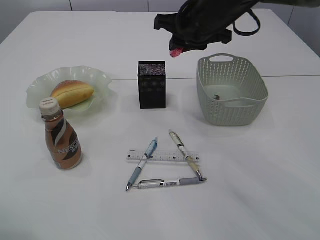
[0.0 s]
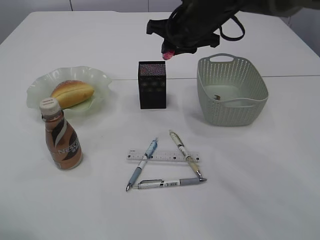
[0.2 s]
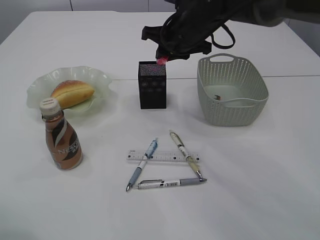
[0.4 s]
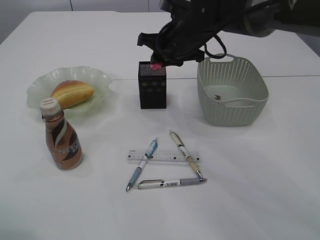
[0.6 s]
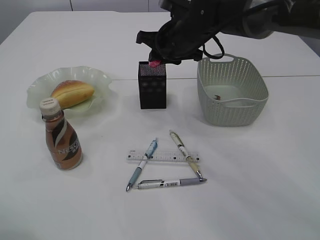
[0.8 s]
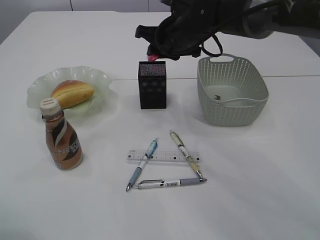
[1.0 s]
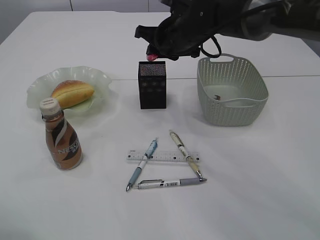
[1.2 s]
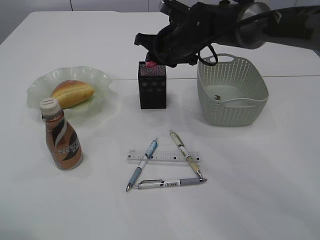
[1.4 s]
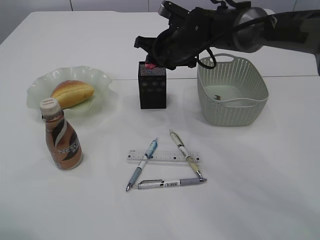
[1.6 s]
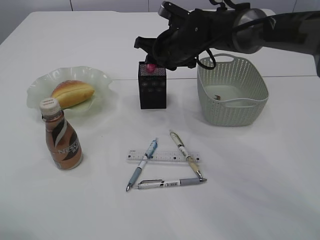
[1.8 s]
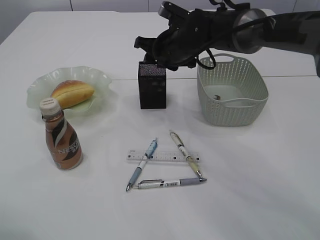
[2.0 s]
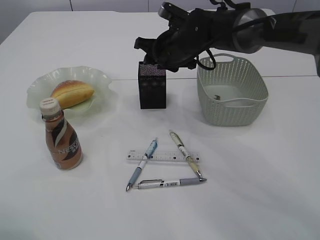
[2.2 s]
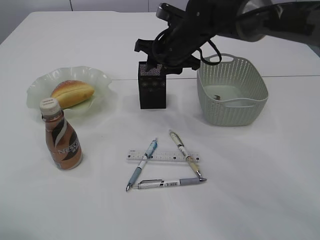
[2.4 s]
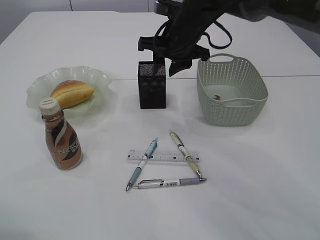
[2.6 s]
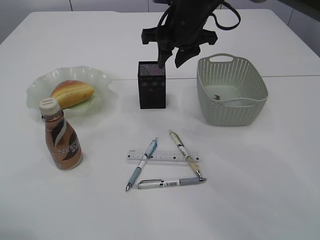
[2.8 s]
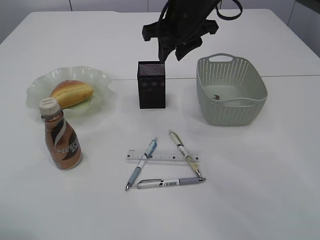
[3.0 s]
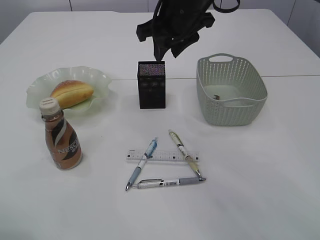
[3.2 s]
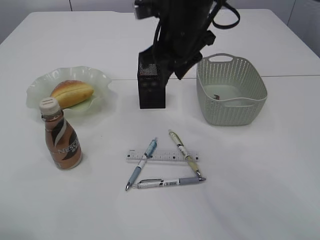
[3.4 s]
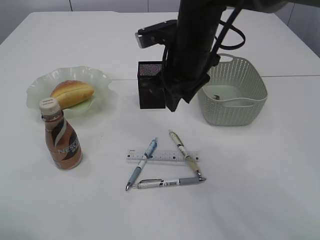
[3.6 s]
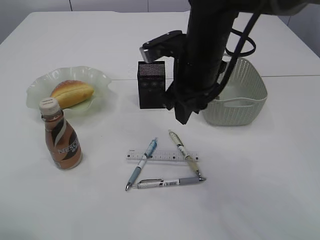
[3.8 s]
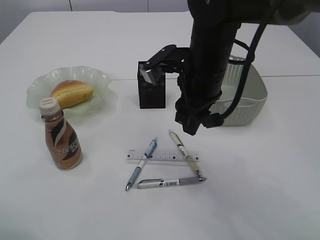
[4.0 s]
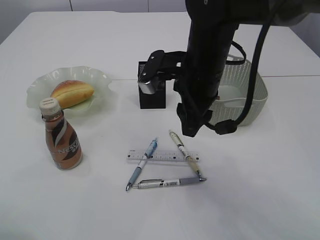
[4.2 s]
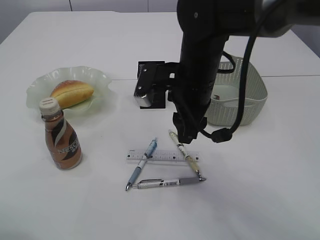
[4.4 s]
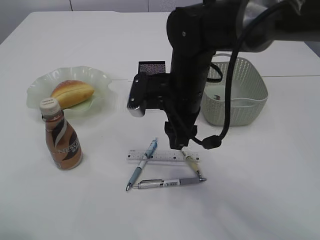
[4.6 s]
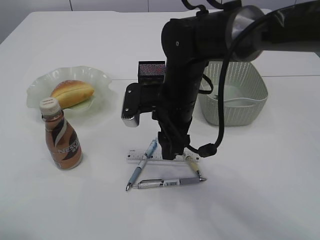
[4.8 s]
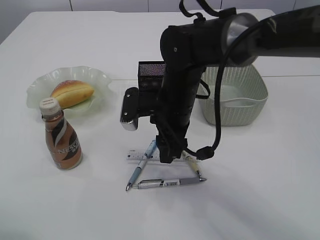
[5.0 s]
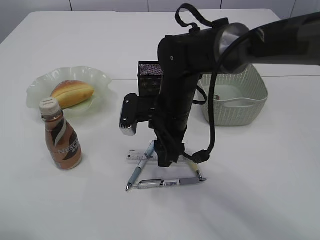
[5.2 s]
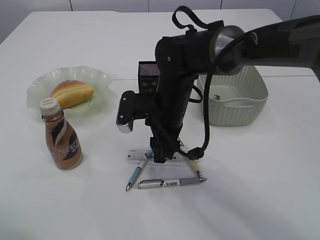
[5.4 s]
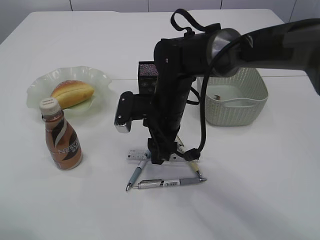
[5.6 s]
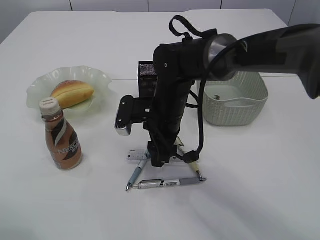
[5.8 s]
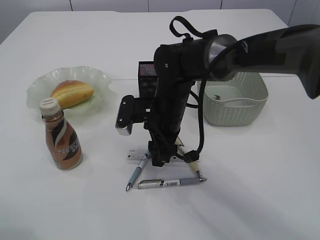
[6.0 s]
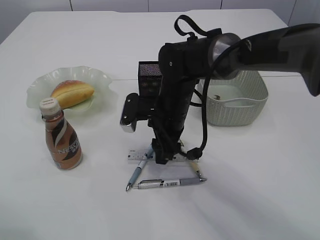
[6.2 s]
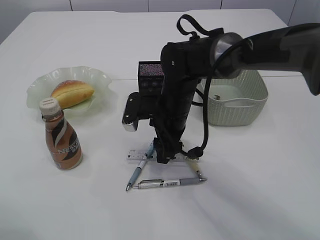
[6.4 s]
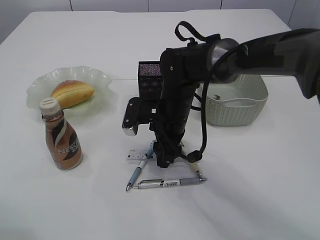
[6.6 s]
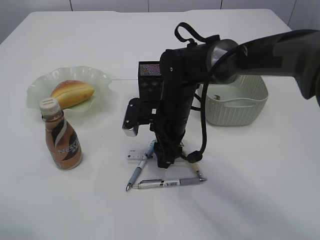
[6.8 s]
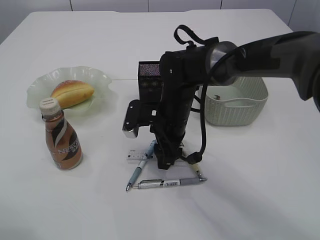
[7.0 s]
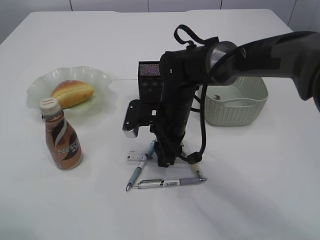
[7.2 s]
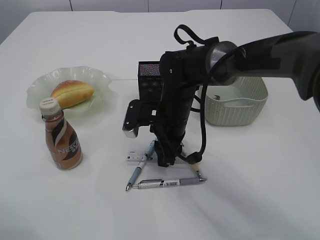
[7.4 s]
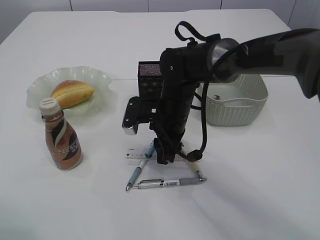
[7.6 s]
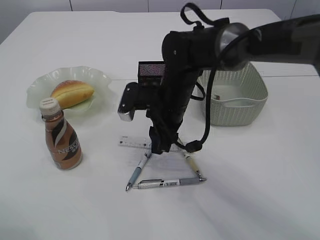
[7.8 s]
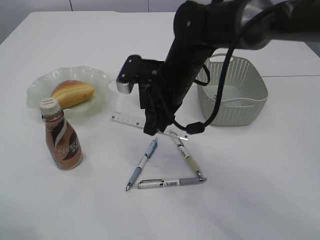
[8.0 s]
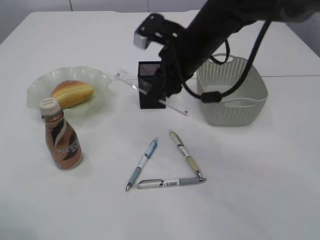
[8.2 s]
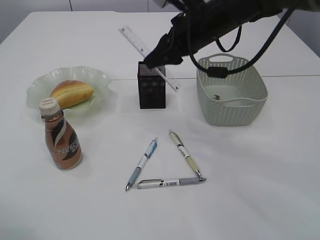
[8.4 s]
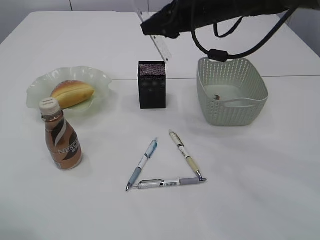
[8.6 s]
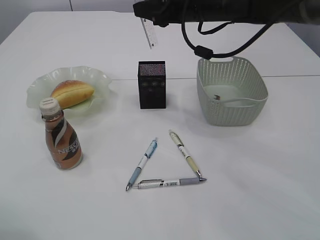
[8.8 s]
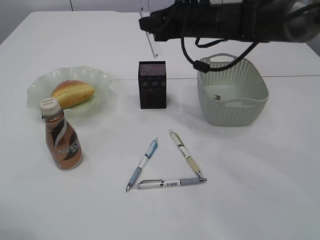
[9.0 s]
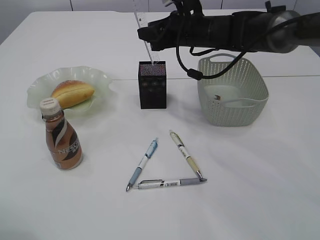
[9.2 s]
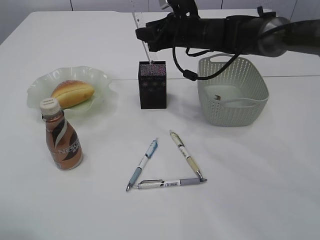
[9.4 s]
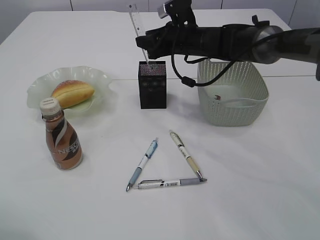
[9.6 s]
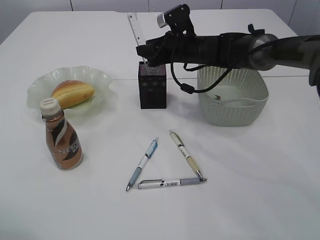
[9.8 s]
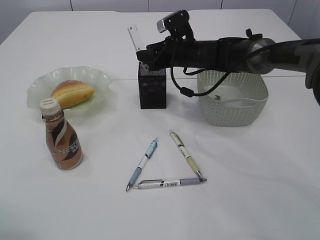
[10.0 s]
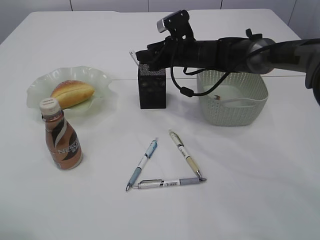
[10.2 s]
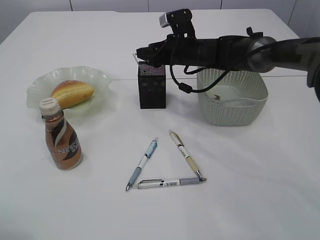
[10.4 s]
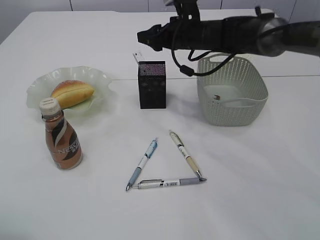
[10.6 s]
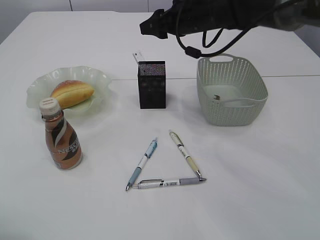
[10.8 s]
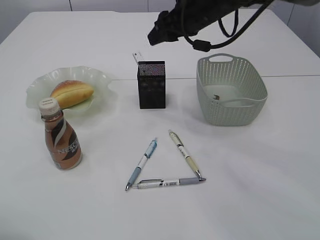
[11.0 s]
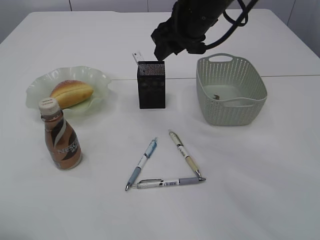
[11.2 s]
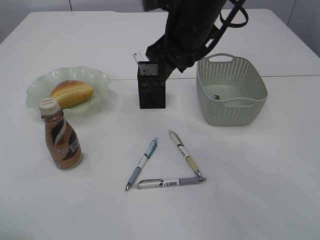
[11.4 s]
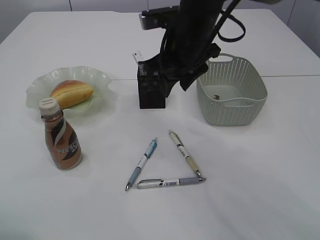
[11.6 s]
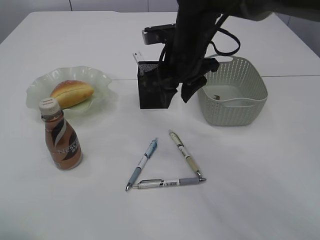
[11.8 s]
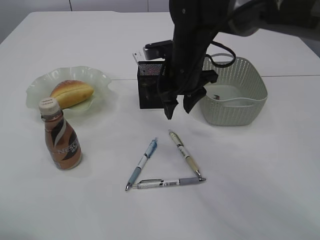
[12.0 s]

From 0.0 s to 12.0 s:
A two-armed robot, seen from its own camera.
Step, from 0.0 s to 2.0 s: Place the red pencil sharpener into the pen holder.
Step, from 2.2 s to 8.0 s: pick up the ruler.
Step, from 8.2 s to 11.4 s: Place the ruler into the pen holder.
From 0.0 s to 1.6 s: The right gripper is displaced downward and forward by about 10 cm.
From 1.6 s to 3.0 s: The right gripper travels upward by about 10 cm.
From 3.0 s to 4.4 s: The right gripper moves backward and downward, about 10 cm.
From 4.4 s to 6.0 s: The right gripper travels downward by about 10 cm.
From 6.0 s to 7.6 s: There are only small adjustments of the grippers.
From 7.6 s to 9.0 s: The right gripper heads upward, forward and to the right, covering about 15 cm.
From 9.0 s to 10.4 s: The right gripper is displaced downward by about 10 cm.
From 10.4 s to 12.0 s: The right gripper shifts some 10 cm backward.

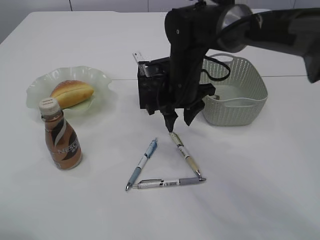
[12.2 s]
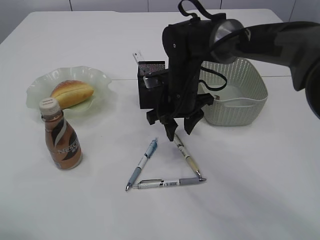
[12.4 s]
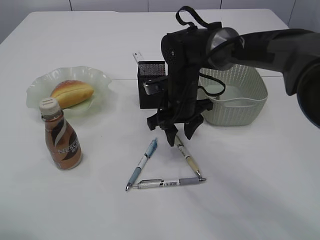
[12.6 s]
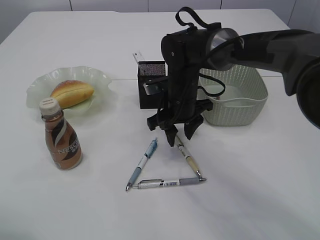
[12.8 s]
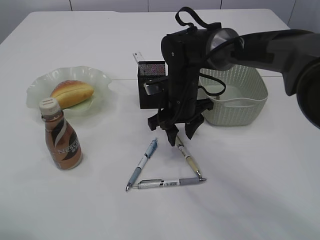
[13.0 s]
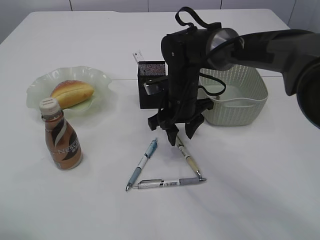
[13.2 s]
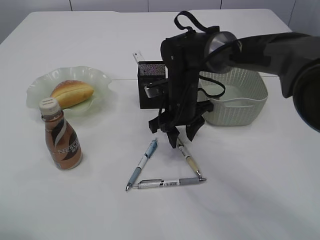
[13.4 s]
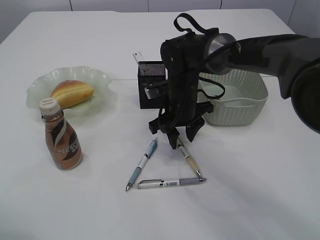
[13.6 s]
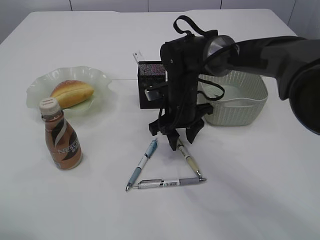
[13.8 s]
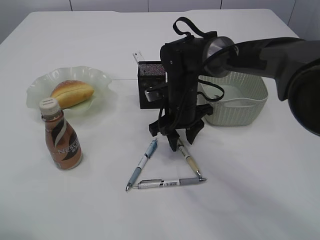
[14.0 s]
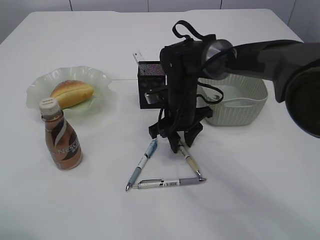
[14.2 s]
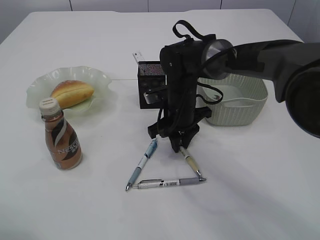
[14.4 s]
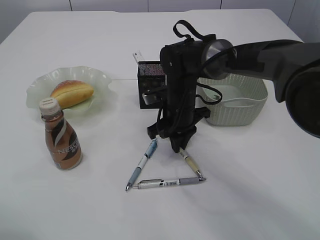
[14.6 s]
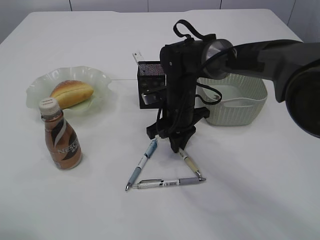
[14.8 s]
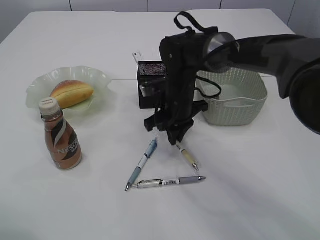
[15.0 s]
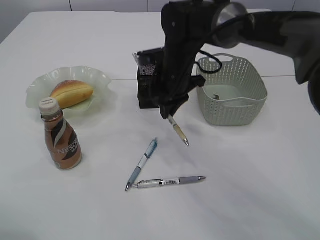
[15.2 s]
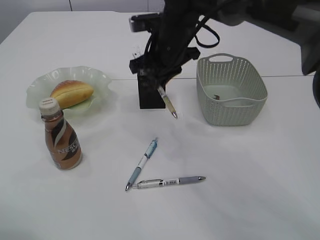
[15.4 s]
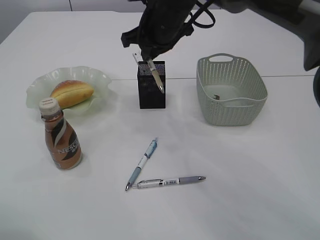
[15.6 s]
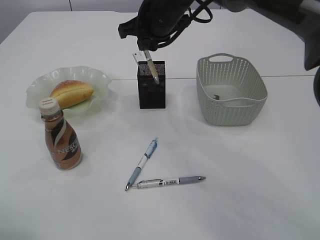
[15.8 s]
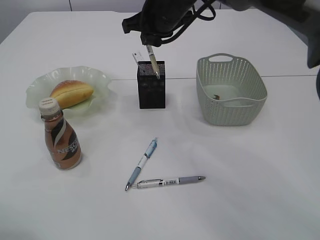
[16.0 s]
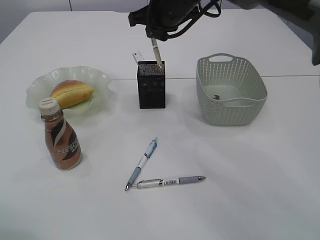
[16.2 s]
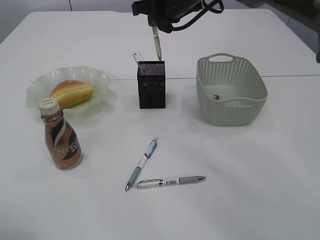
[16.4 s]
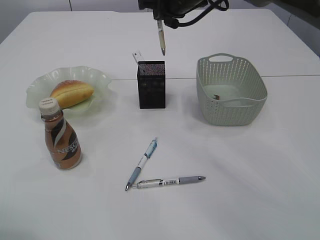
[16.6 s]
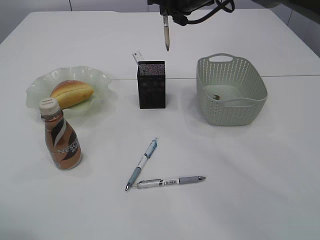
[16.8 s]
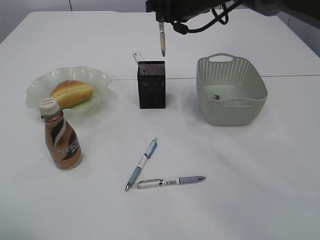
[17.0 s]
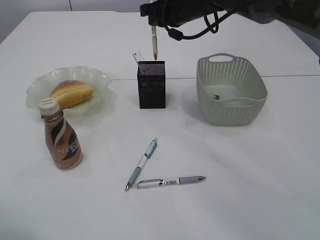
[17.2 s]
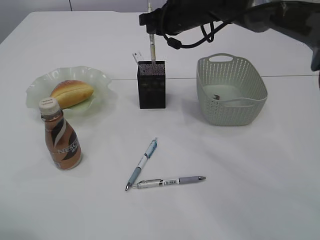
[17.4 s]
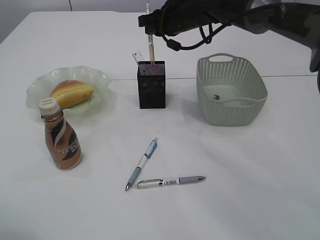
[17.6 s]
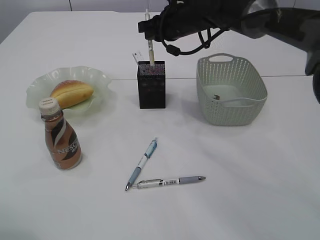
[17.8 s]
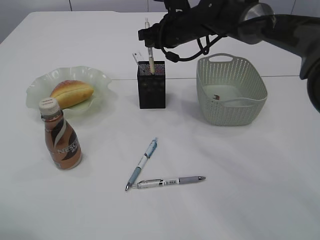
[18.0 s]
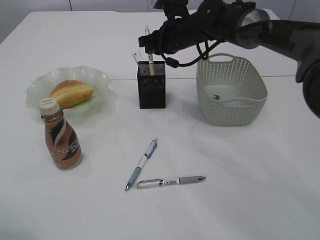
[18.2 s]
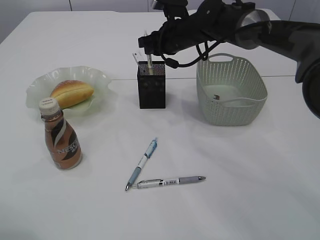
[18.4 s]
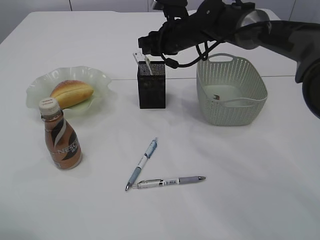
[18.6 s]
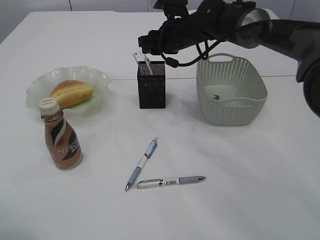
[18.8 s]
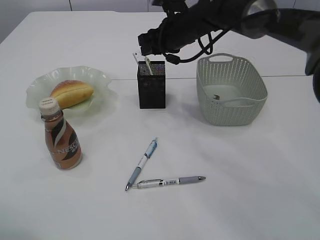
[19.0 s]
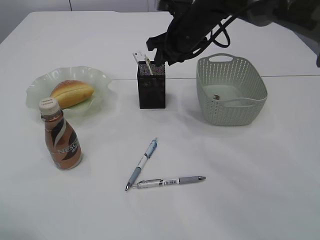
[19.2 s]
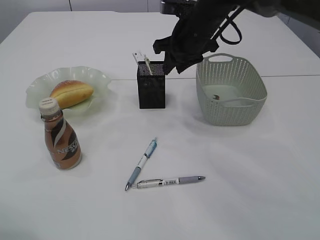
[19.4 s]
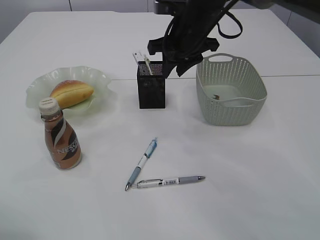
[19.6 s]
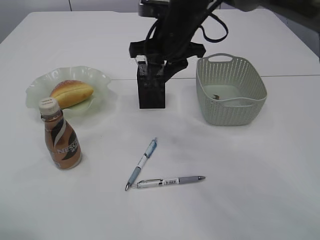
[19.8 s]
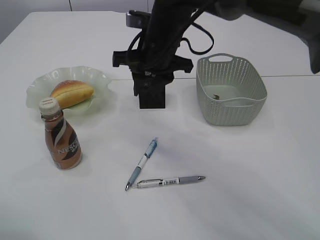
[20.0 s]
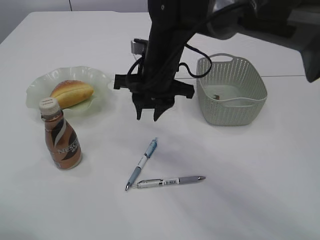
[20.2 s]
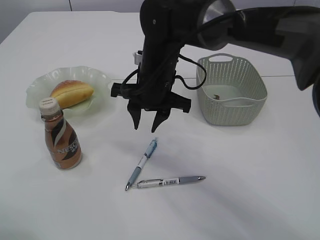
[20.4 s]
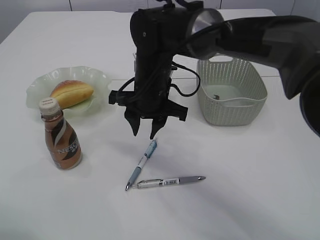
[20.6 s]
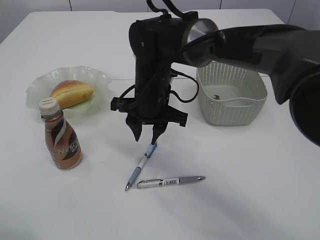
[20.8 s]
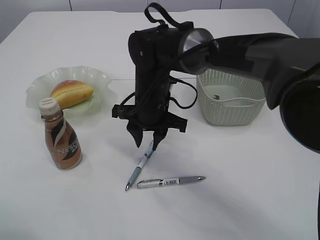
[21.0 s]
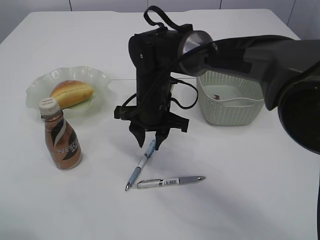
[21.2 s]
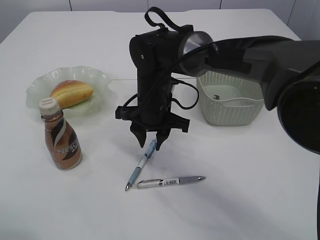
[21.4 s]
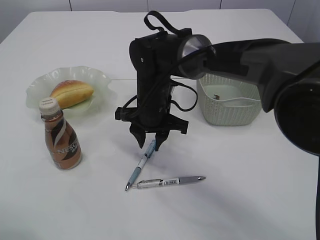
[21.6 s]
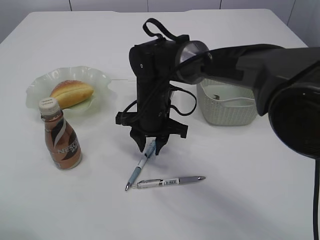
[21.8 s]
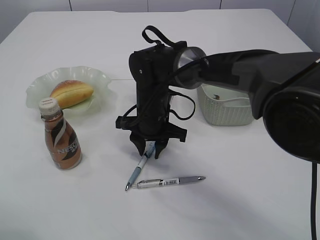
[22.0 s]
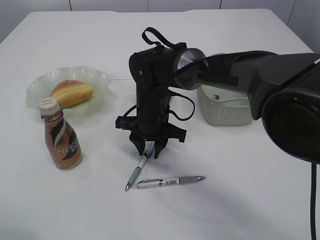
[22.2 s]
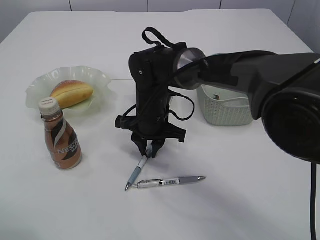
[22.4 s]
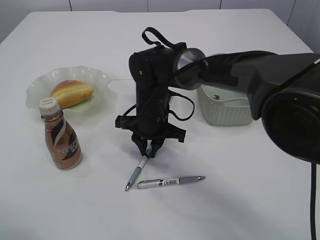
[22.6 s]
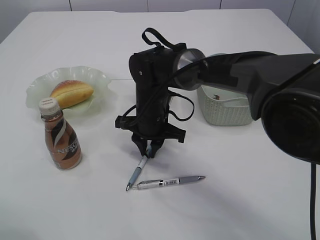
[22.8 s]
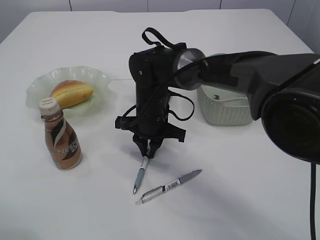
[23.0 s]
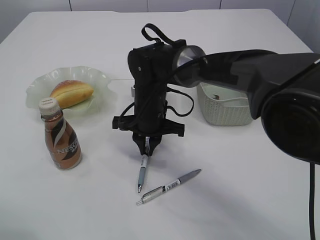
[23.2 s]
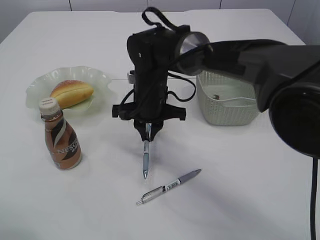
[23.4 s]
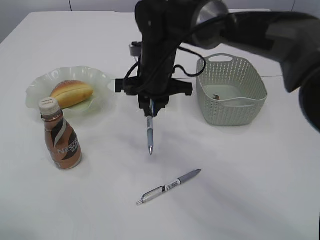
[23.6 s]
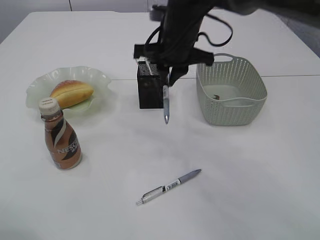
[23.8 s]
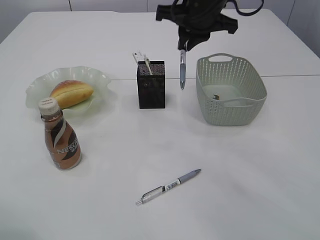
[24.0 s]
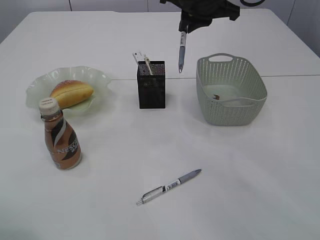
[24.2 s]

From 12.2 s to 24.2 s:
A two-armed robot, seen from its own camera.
Step, from 12.2 s to 15.4 s: Pick up the pen with right arm.
Step, from 15.6 s to 19.6 s: Place the pen into the pen holder.
Step, from 19.8 s to 23.6 s: Pick up the pen with right arm.
From 12.2 s to 13.8 s: The right gripper is displaced downward by approximately 5 cm.
From 13.8 s to 15.2 s: The right gripper is displaced upward by about 5 cm, and closes.
From 15.2 s to 16.6 s: The right gripper heads upward and forward, covering some 15 cm.
From 16.6 s to 18.2 s: The right gripper shifts about 10 cm downward.
From 18.2 s to 19.8 s: The right gripper goes about 10 cm backward, and opens up.
From 19.8 s to 21.2 s: The right gripper heads downward and to the left, covering approximately 10 cm.
From 21.2 s to 22.6 s: The grippers stay close to where they were, moving slightly.
From 22.6 s to 24.2 s: The right gripper goes approximately 25 cm upward and to the right.
